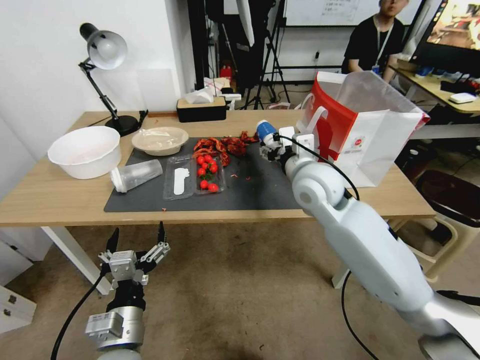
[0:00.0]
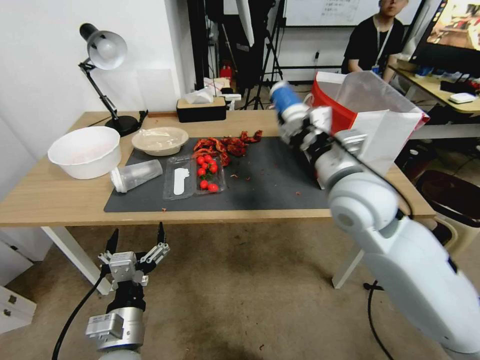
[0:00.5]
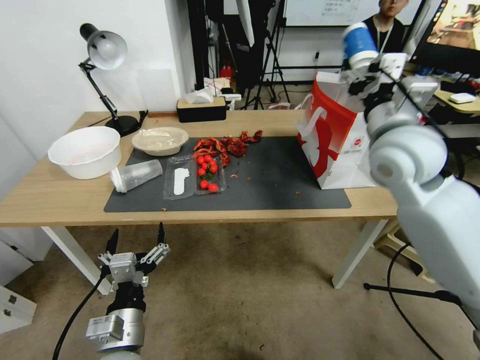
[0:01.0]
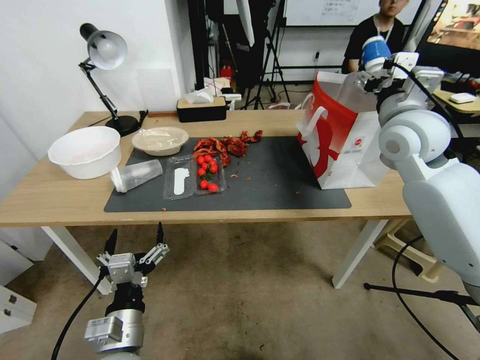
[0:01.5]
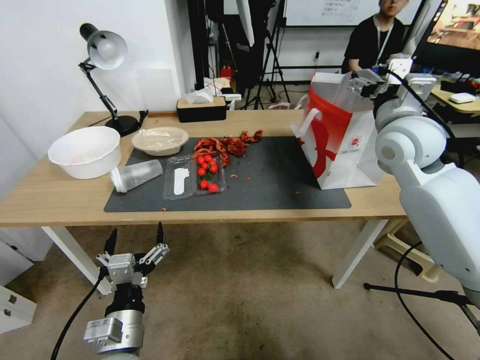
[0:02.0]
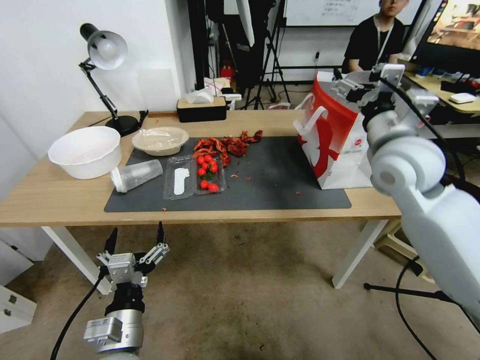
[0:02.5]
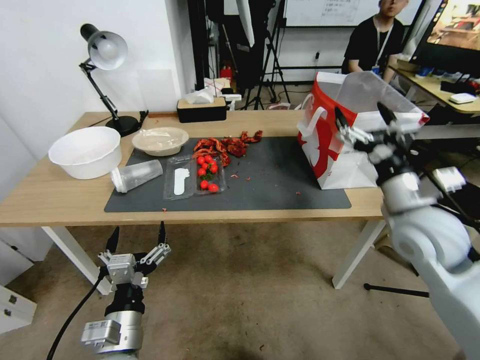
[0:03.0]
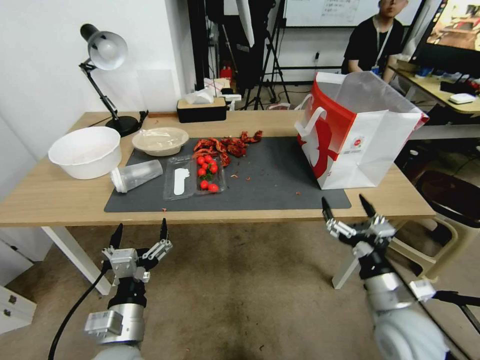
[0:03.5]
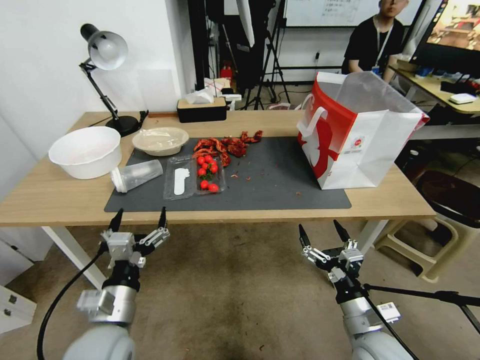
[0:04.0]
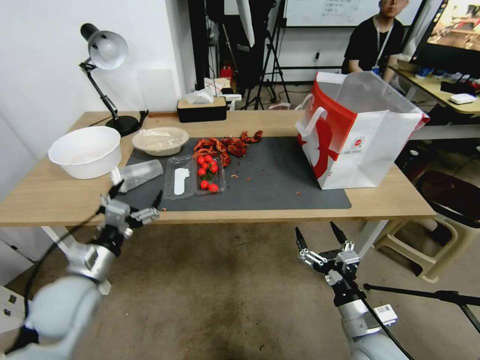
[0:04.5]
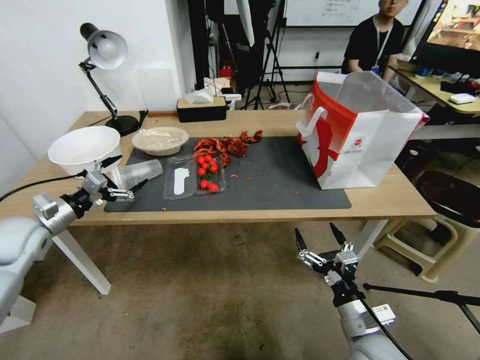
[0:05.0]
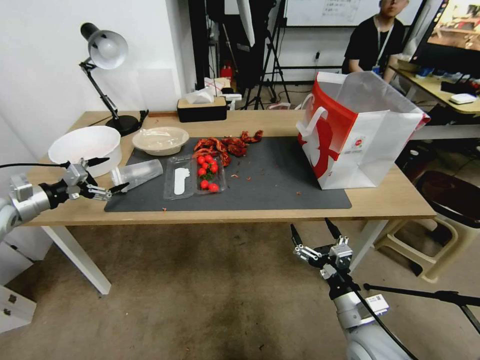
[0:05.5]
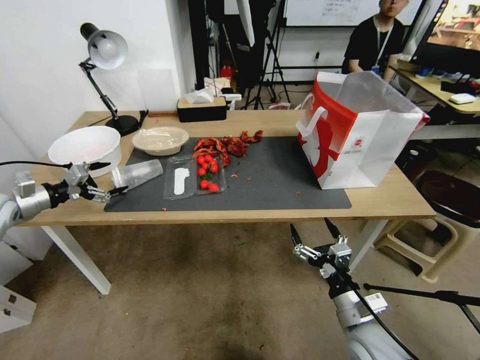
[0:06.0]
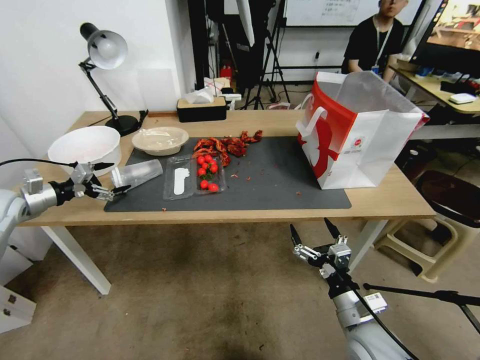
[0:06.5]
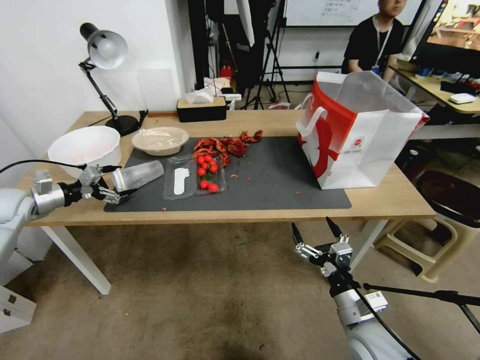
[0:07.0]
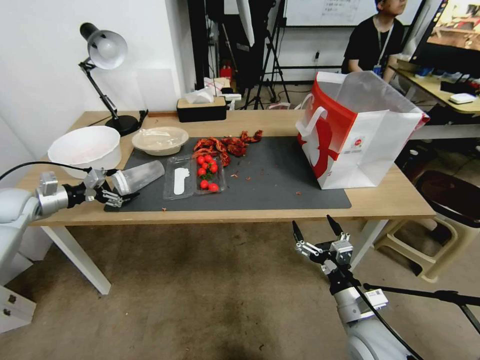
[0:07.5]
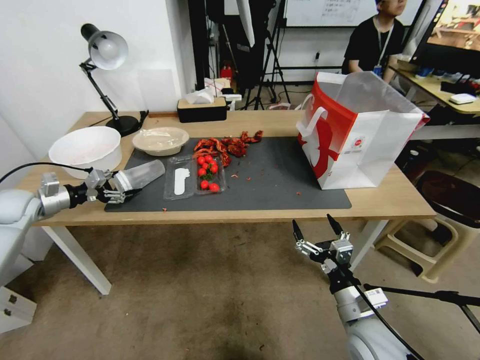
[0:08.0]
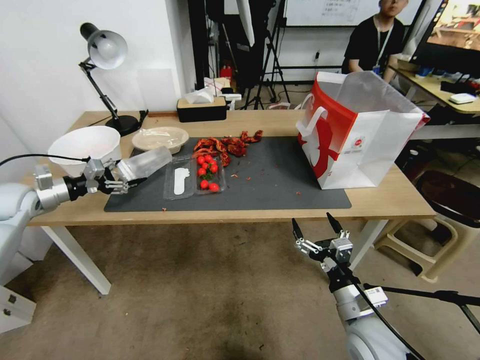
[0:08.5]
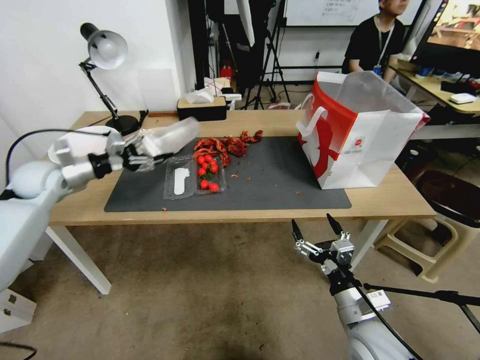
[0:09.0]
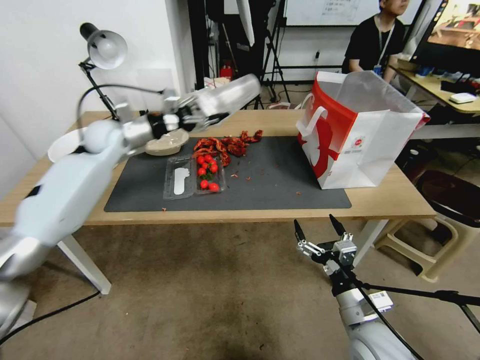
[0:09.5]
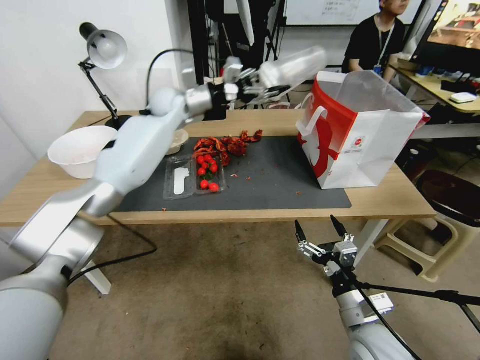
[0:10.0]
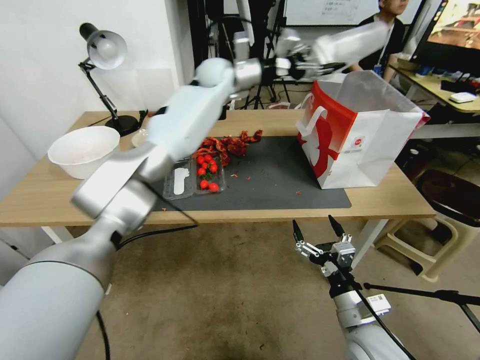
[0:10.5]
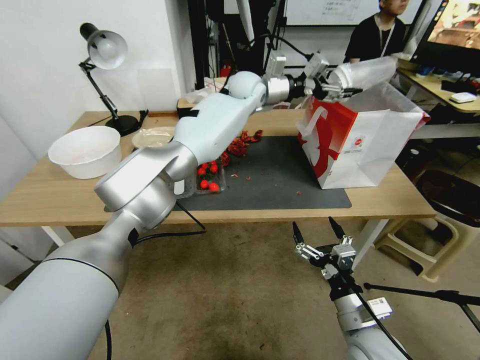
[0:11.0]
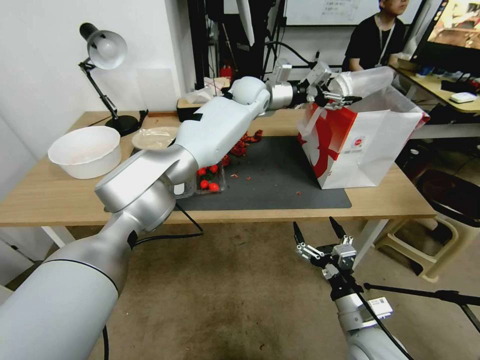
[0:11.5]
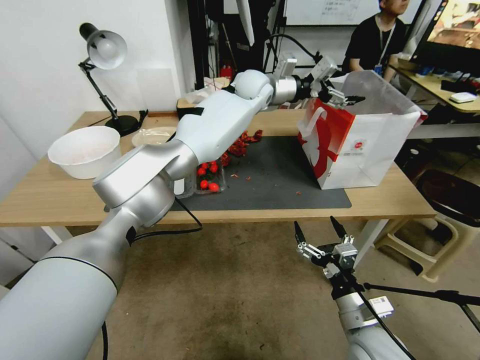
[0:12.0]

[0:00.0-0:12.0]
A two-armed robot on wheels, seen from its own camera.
0:00.0 to 0:02.0: The right gripper shifts some 15 cm to the right and upward, and opens.
0:02.0 to 0:04.0: The right gripper travels downward and backward by roughly 40 cm.
0:04.0 to 0:06.0: The left gripper moves to the left and forward, about 40 cm.
0:06.0 to 0:08.0: The left gripper moves approximately 5 cm.
0:08.0 to 0:10.0: The left gripper heads to the right, forward and upward, covering approximately 50 cm.
0:10.0 to 0:12.0: The left gripper travels to the right by roughly 20 cm.

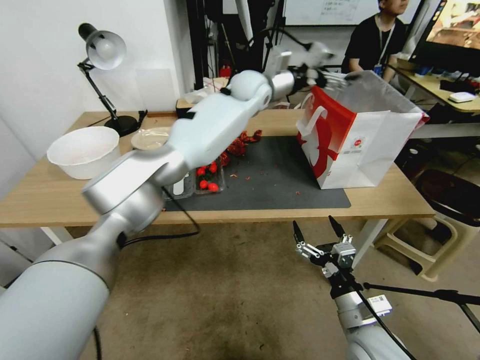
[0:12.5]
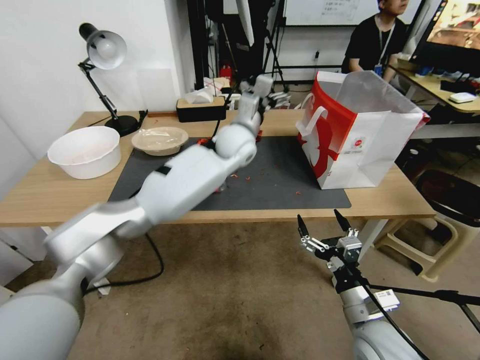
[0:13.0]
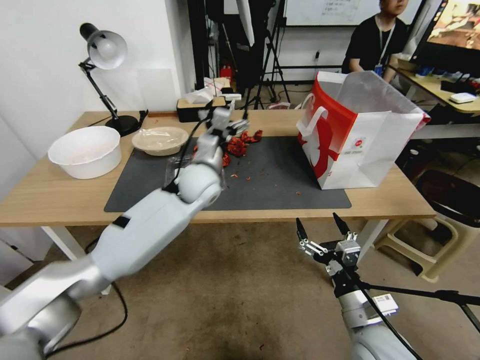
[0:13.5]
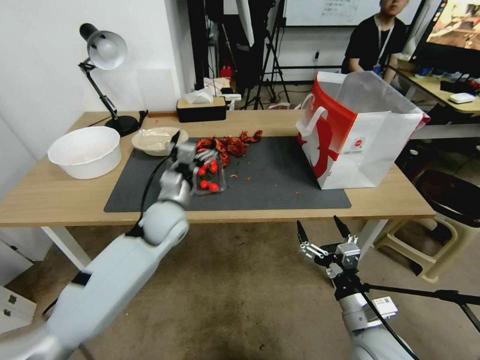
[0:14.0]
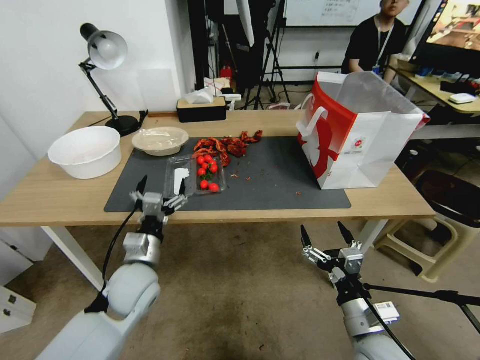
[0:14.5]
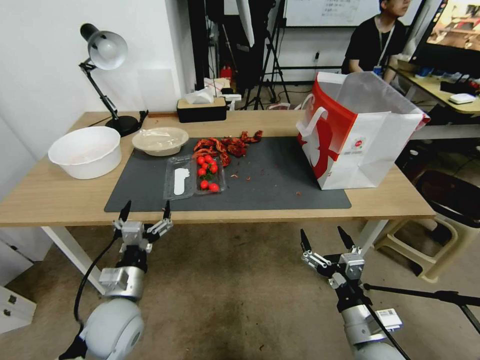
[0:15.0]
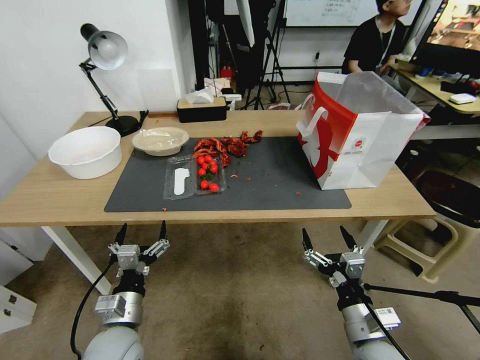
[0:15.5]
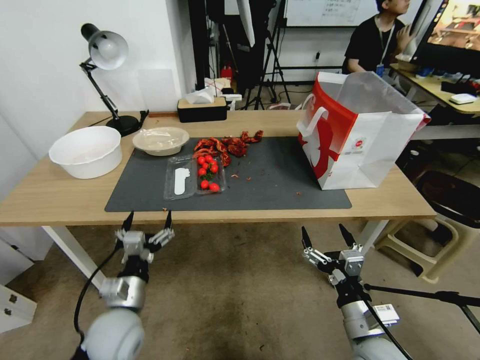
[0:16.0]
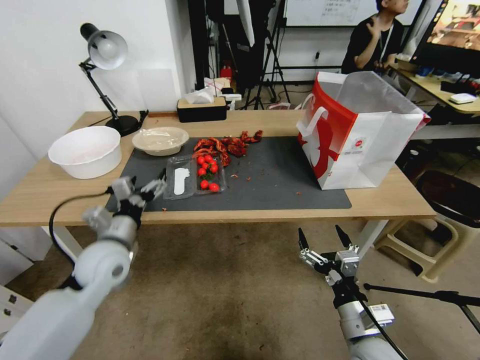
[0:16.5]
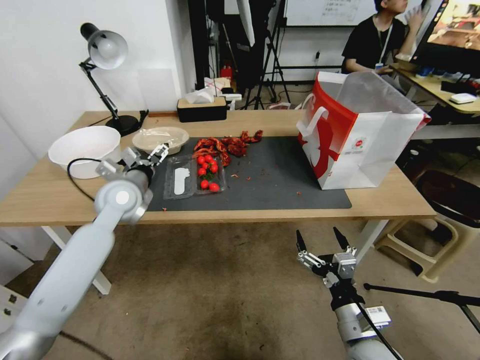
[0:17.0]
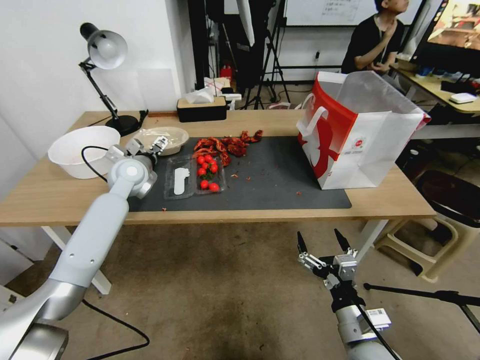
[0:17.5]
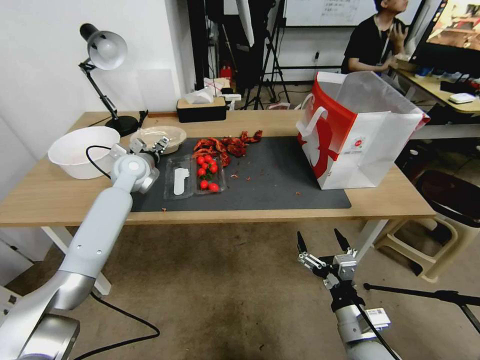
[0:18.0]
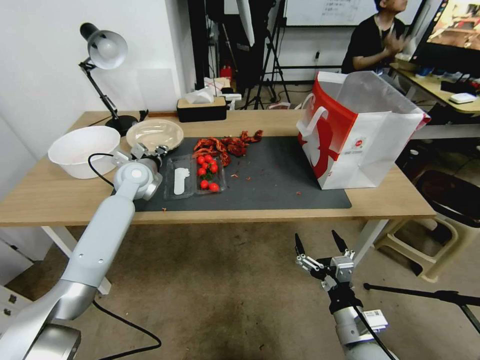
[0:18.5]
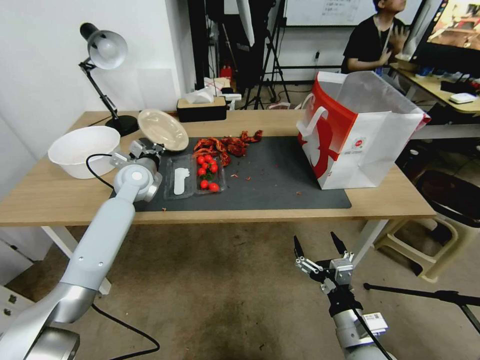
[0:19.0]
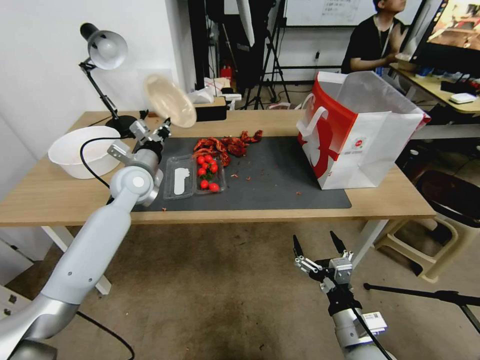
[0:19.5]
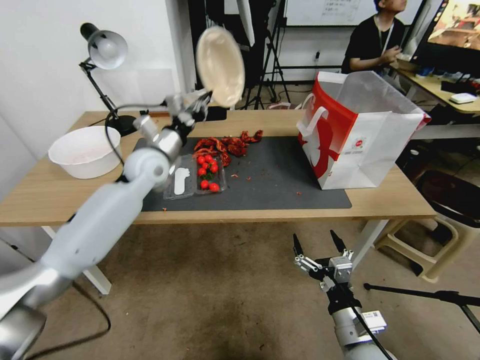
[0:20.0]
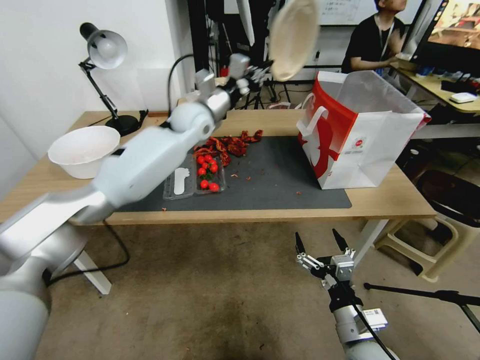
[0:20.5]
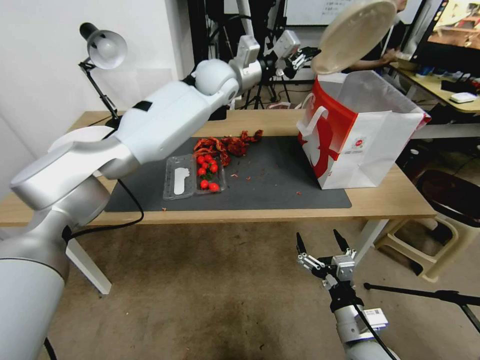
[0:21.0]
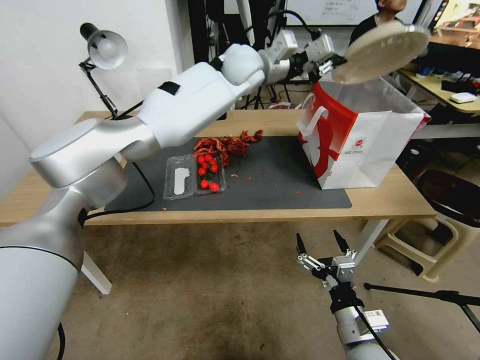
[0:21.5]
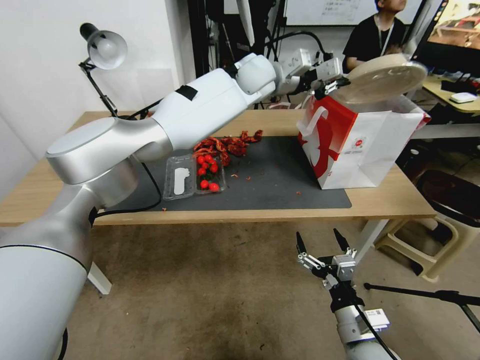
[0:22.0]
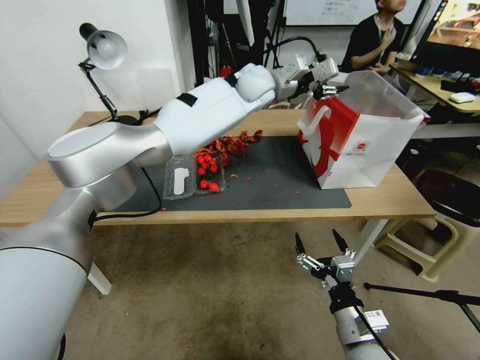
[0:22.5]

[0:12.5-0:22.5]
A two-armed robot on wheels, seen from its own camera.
0:12.5 to 0:14.5: The left gripper moves backward, downward and to the left, approximately 50 cm.
0:14.5 to 0:16.5: The left gripper travels backward by roughly 5 cm.
0:16.5 to 0:18.5: The left gripper shifts about 30 cm forward, and closes.
0:18.5 to 0:20.5: The left gripper is displaced to the right, upward and forward by about 20 cm.
0:20.5 to 0:22.5: The left gripper heads to the right and upward, covering about 15 cm, and opens its fingers.

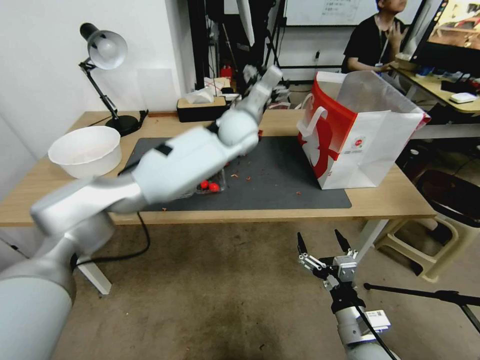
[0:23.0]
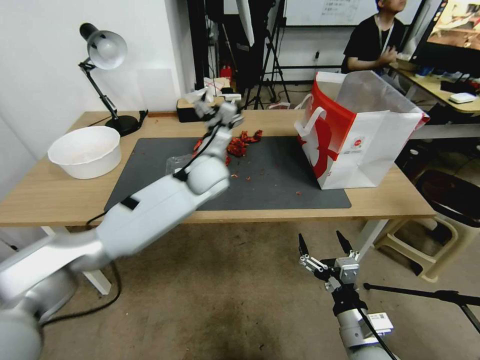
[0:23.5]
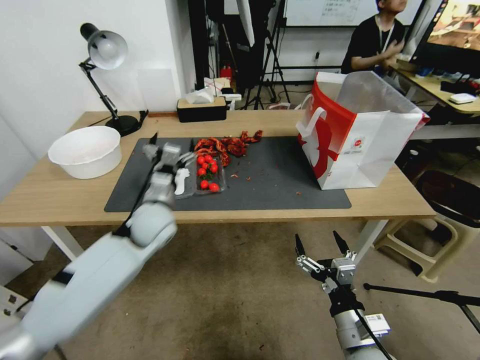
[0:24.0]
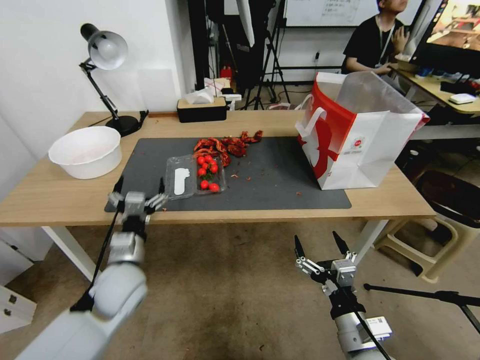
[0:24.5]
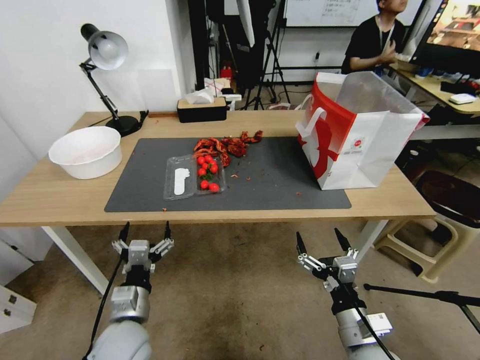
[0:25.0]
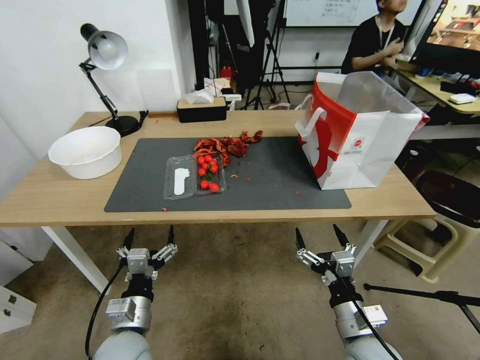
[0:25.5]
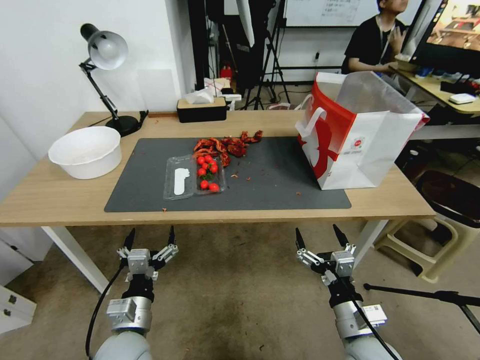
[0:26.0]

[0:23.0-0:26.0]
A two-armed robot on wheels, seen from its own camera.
0:23.0 to 0:24.5: The left gripper goes roughly 40 cm backward, to the left and downward.
0:24.5 to 0:26.0: The left gripper moves backward, about 10 cm.
